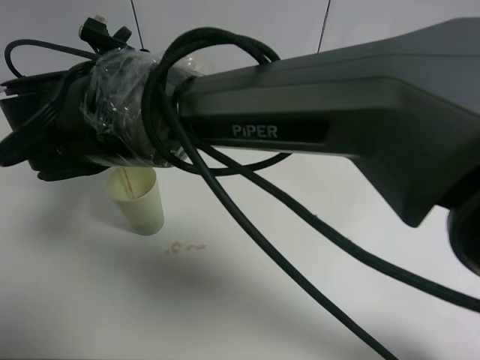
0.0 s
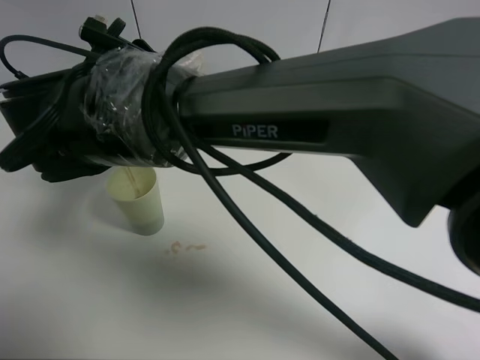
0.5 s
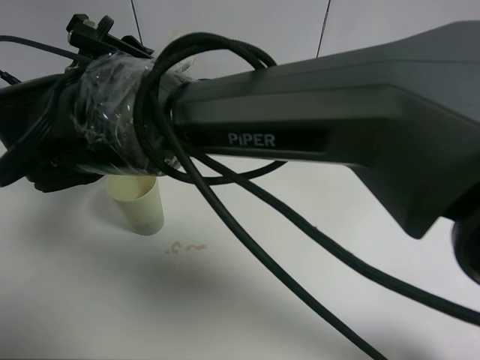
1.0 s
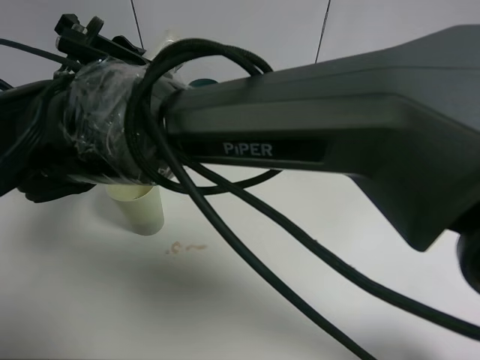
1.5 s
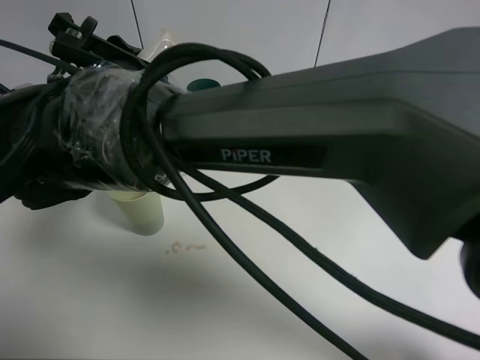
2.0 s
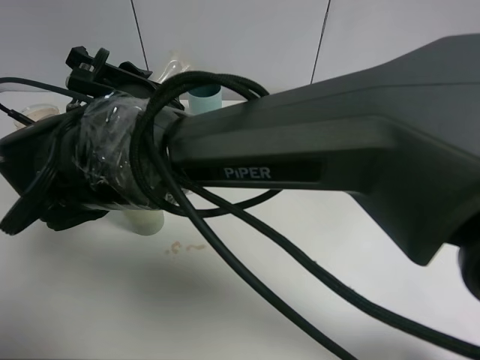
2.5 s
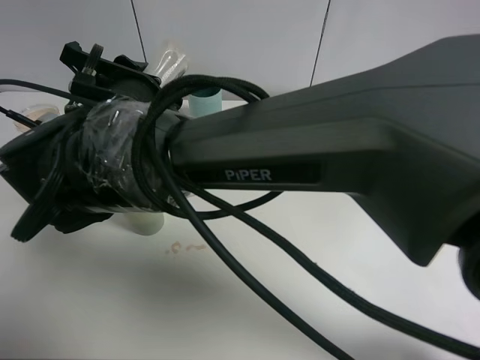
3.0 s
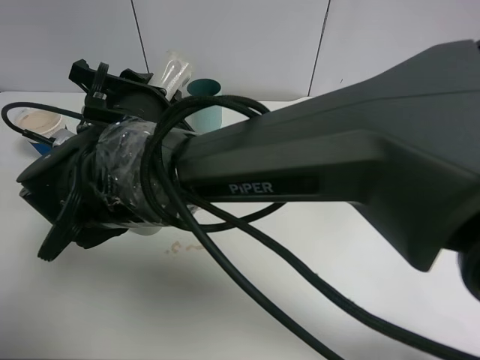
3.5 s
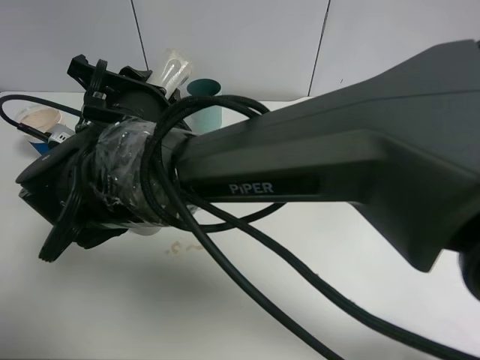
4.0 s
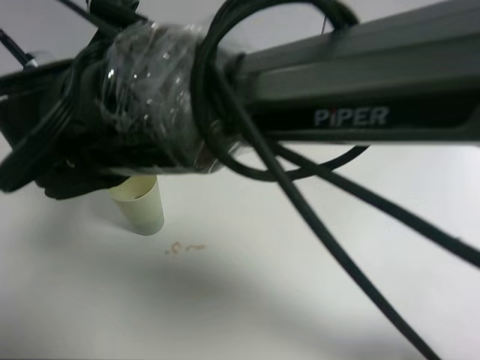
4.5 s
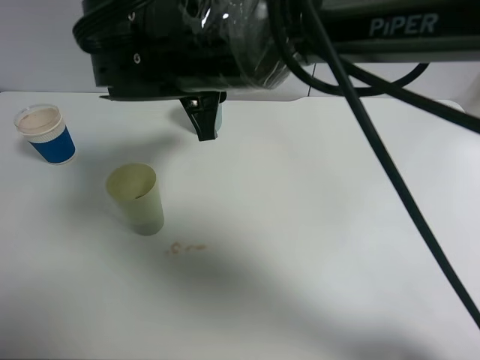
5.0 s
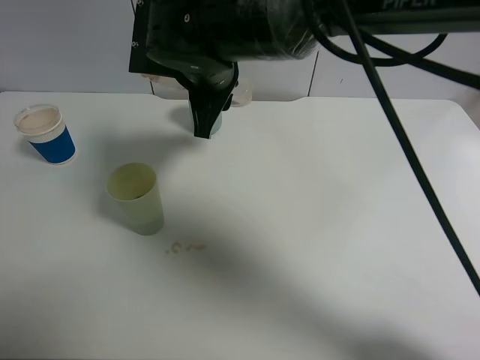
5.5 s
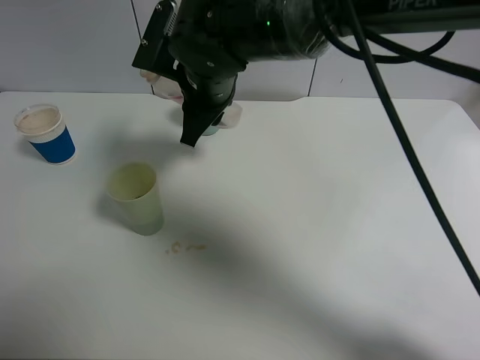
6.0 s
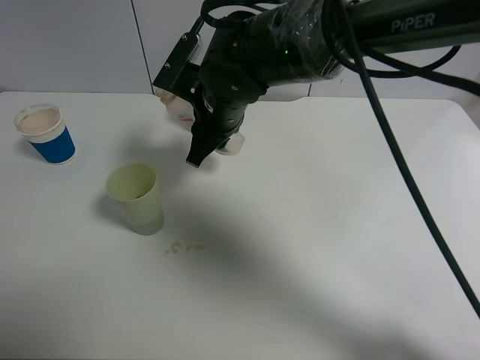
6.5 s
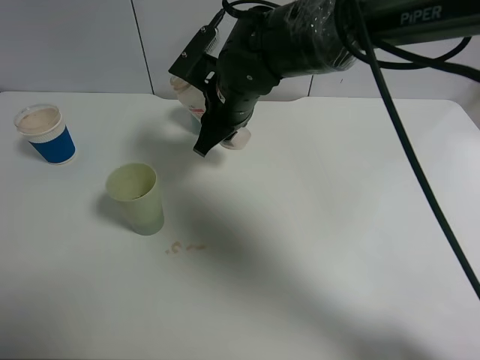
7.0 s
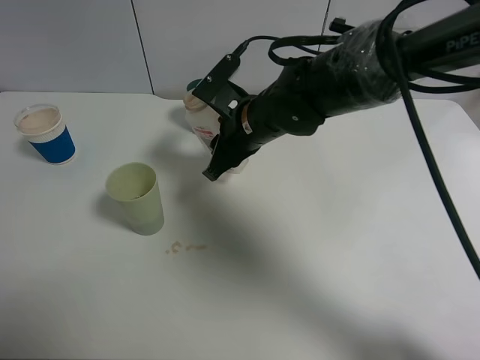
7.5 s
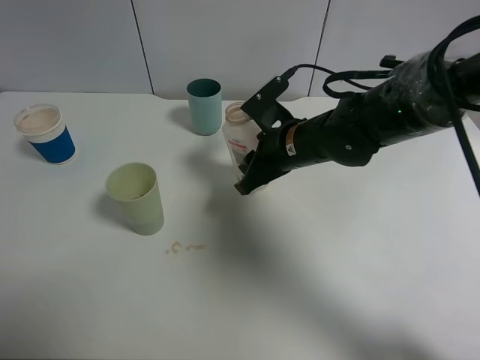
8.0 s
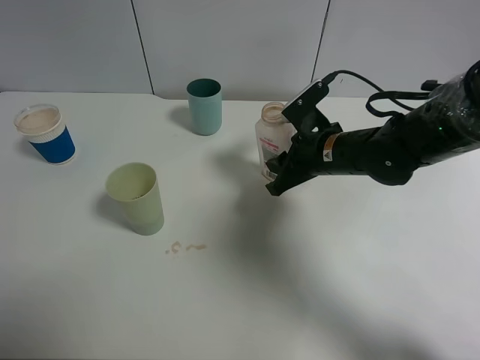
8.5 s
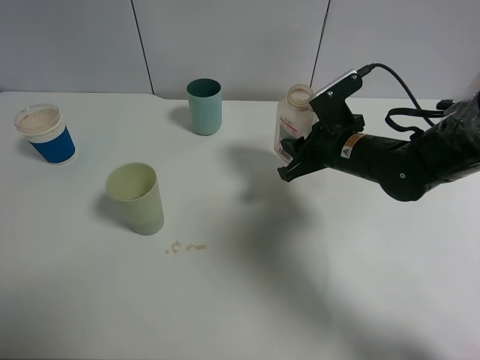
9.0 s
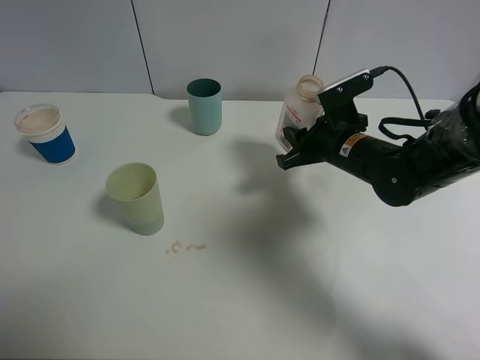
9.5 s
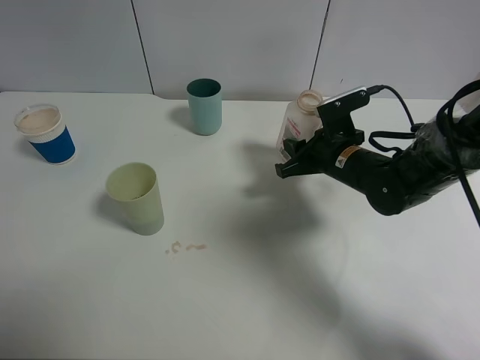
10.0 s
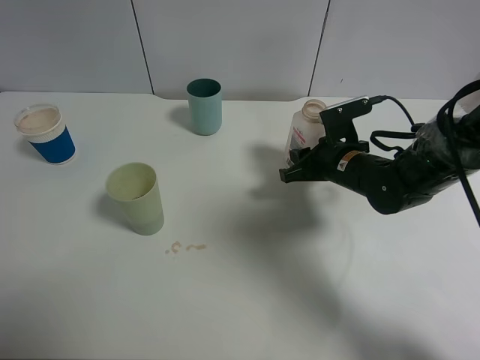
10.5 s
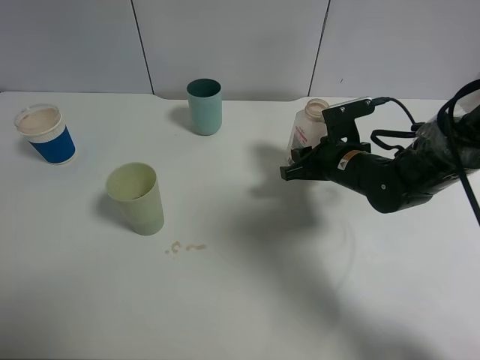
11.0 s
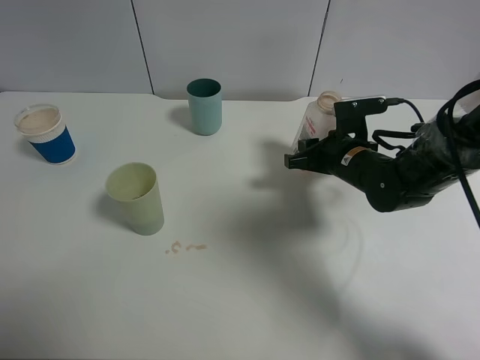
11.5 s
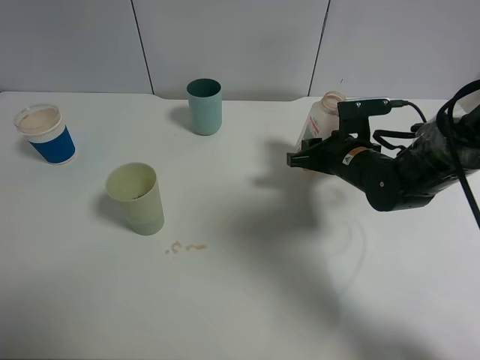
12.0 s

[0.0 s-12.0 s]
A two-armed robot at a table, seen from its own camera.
Task of the whole recording: use a clamp to hold the bottle of the drink, pour the beverage into a random cup, then clamp the cup containing the drink and pour the drink into another random cup.
Step, 0.0 to 5.5 s: Pour the drink into the green plastic cup with right gripper.
4.0 to 6.0 s: The right gripper travels forward and to the right by approximately 10 cm.
6.0 to 8.0 s: The right gripper shifts some 15 cm to the right and downward.
8.0 to 10.0 s: The right gripper is displaced to the right by about 10 cm.
10.0 to 12.0 s: The grippers stay close to where they were, moving slightly.

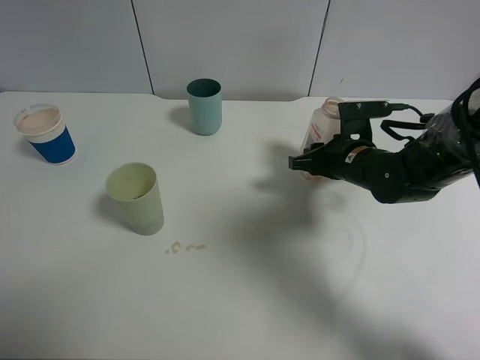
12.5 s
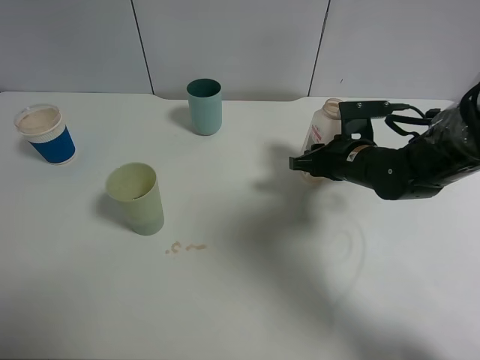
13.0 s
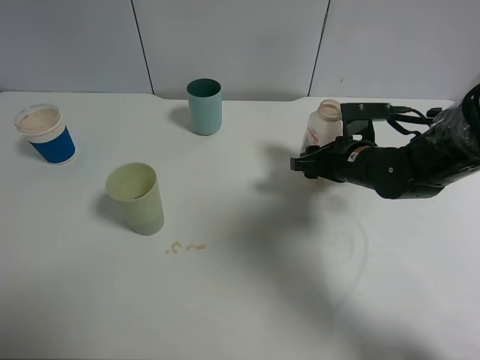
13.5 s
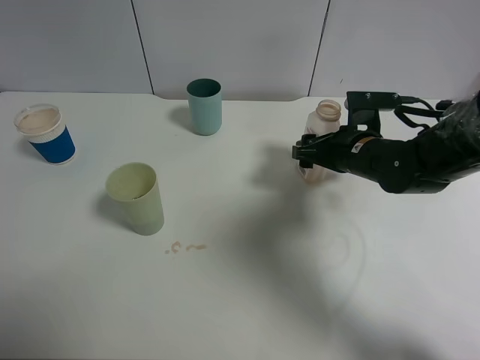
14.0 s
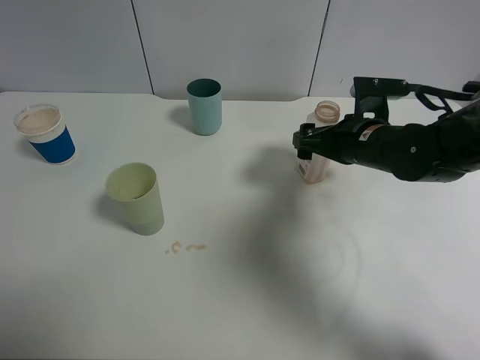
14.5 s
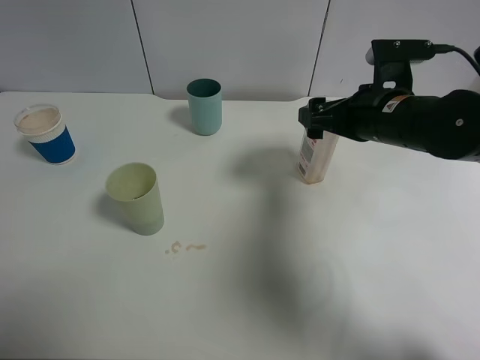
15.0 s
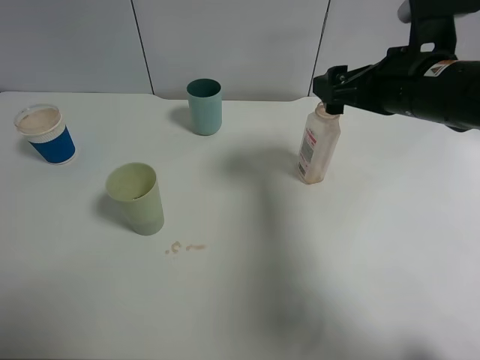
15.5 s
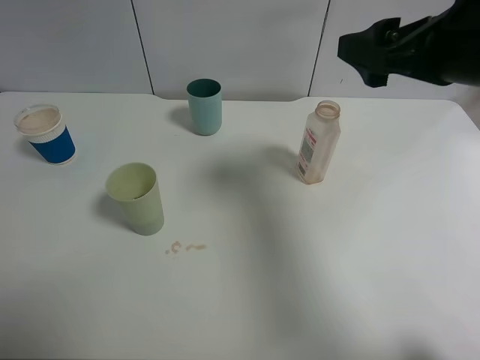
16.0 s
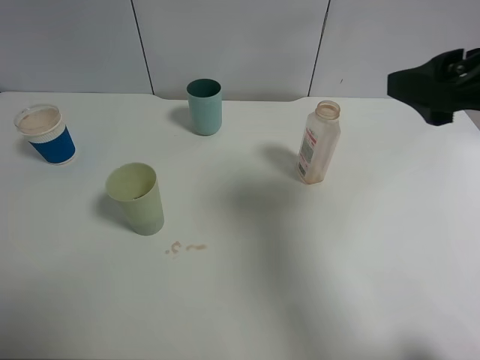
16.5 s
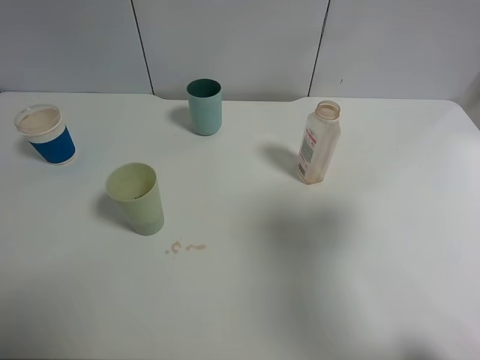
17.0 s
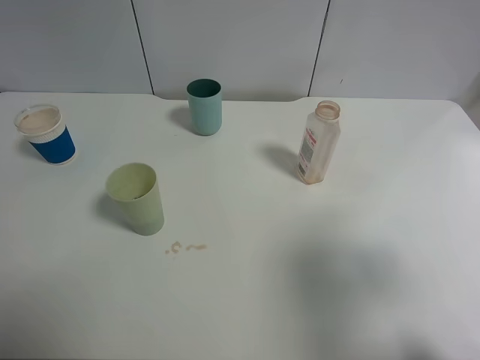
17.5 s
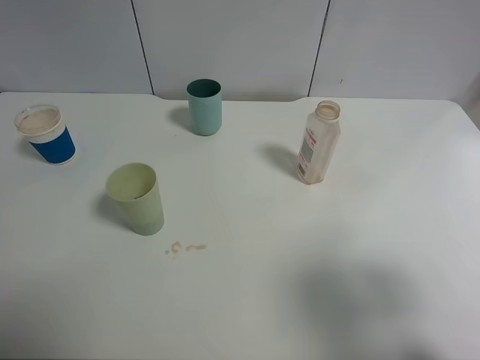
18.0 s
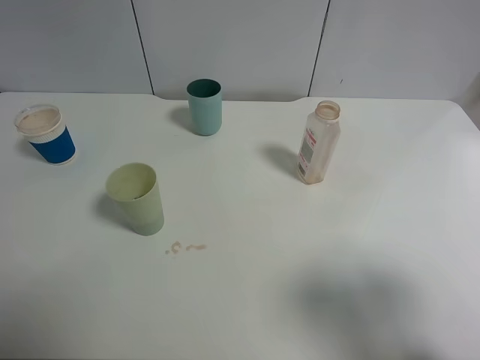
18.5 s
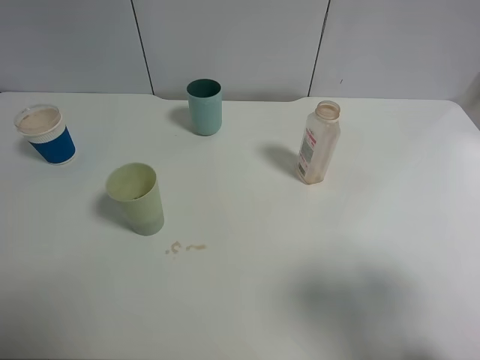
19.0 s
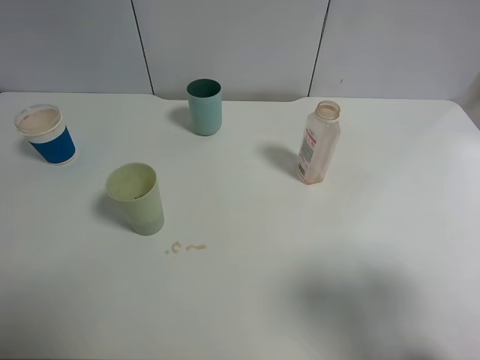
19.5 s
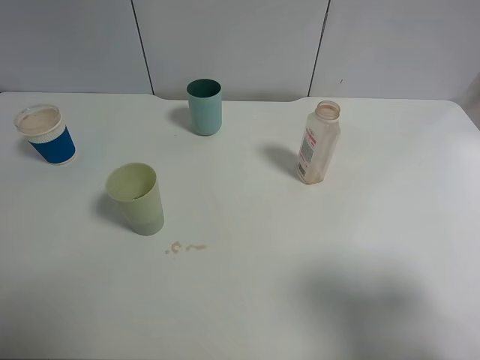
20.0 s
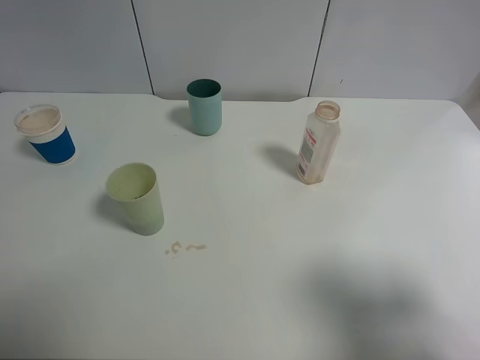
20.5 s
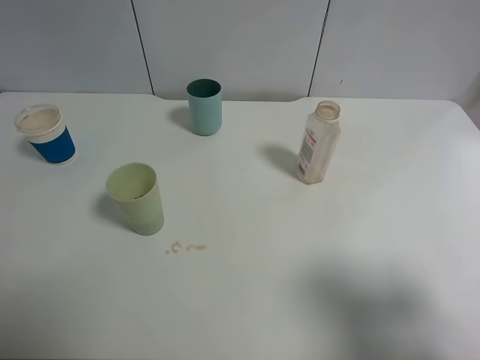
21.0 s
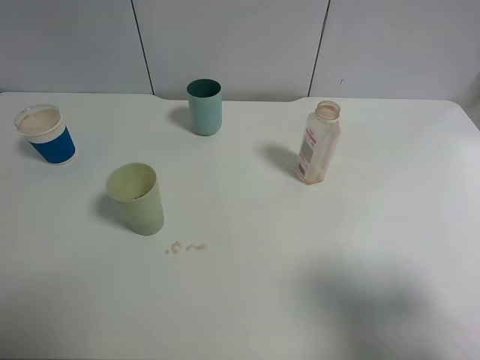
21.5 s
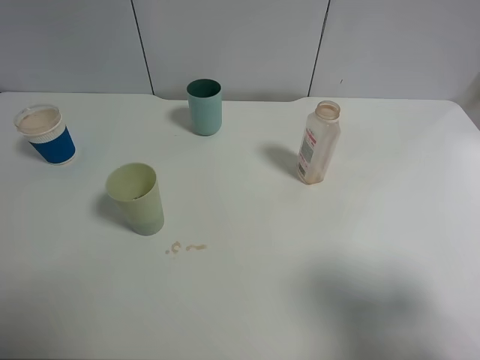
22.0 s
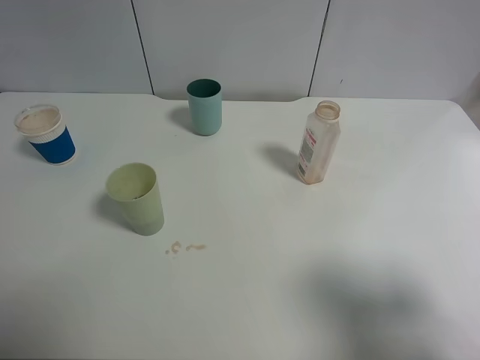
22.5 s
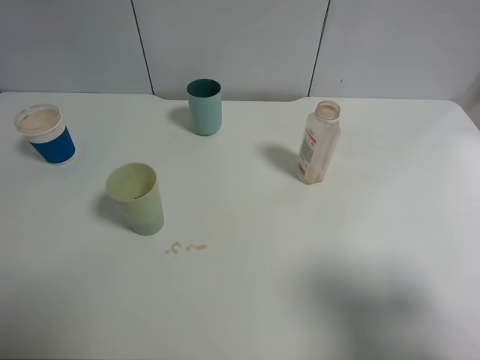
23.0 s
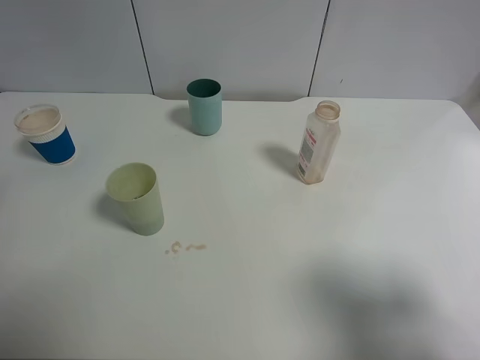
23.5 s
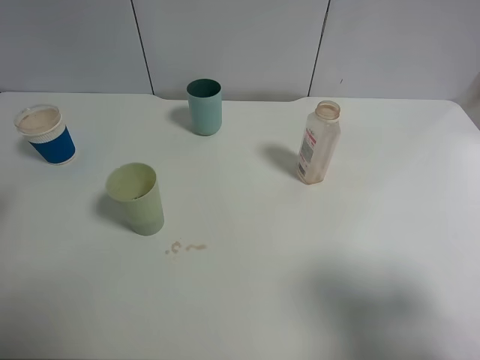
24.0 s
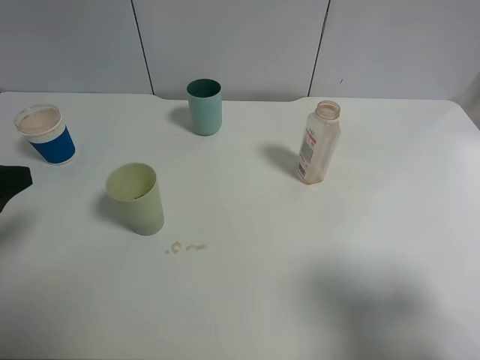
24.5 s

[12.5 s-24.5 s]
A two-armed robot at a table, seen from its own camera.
Task of the whole recording: use a clamp to hold the bottle of the drink, pour the beverage into a random cup, then clamp the cup containing the drink and pour the drink into another random cup.
Step, 12.5 to 14.5 s: Place the drink bottle on the table with right gripper.
12.5 to 14.5 s: The right gripper opens.
14.5 to 16.5 s: The right gripper shifts some 20 cm upward and backward.
16.5 to 18.5 s: The right gripper travels backward and to the right by about 15 cm.
22.5 to 24.5 s: The left gripper goes about 10 cm downward and forward.

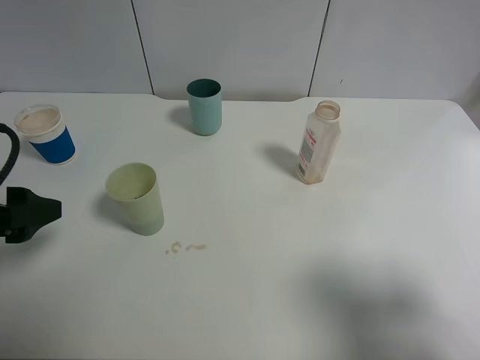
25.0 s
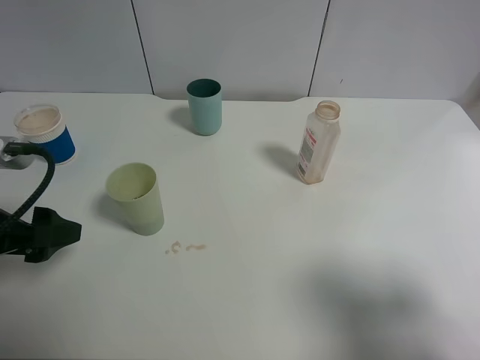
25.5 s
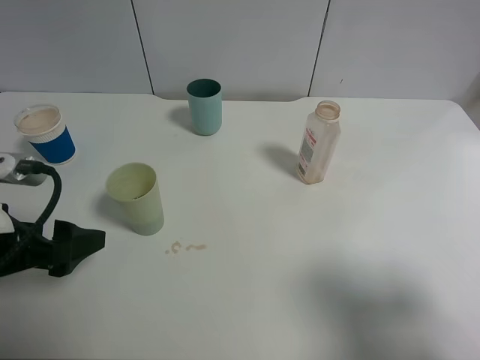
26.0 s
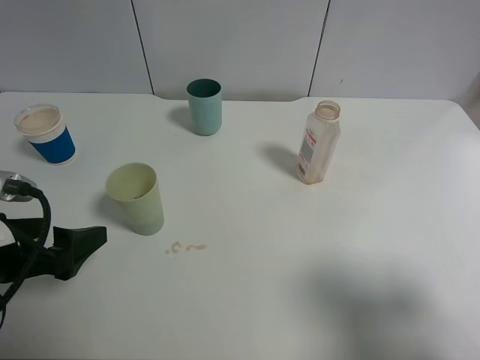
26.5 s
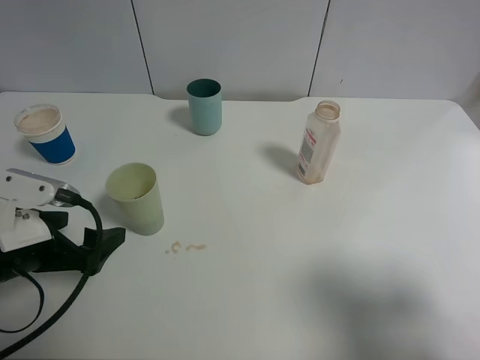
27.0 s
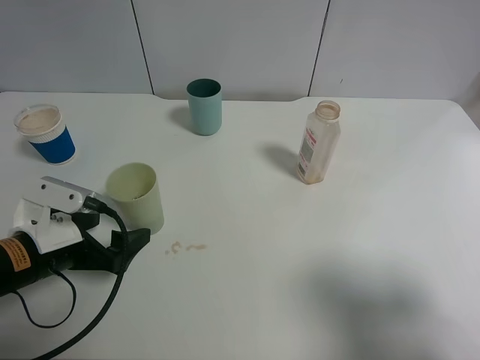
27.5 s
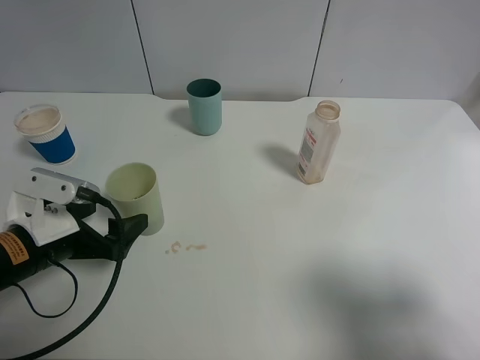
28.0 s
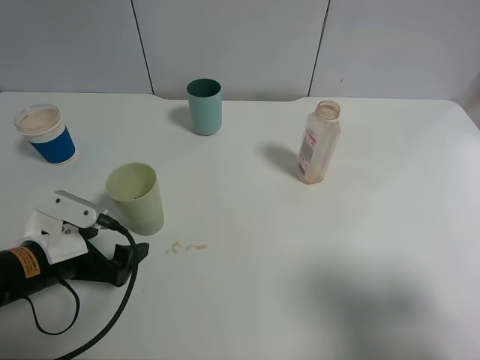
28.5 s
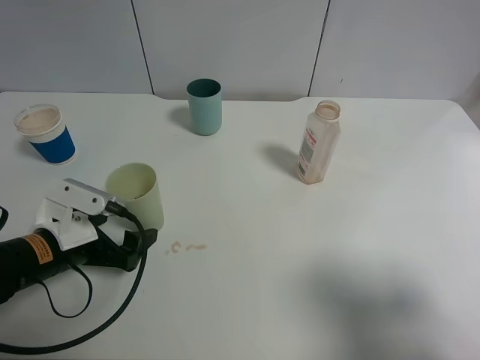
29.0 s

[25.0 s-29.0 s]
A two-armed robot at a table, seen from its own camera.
Task of the whole recording: use a clamp to hold the bottle of the drink, pour the beverage into a random cup, then clamp the cup containing the drink and pour the drink into another random cup.
25.0 to 27.0 s: The left gripper is displaced downward by roughly 10 cm.
27.0 to 29.0 s: The left gripper ends up about 5 cm from where it was.
